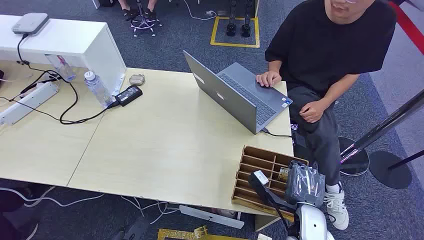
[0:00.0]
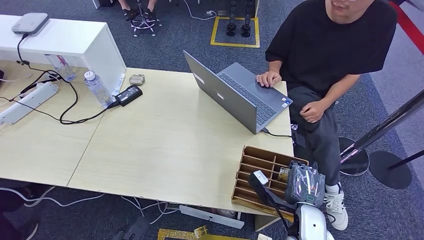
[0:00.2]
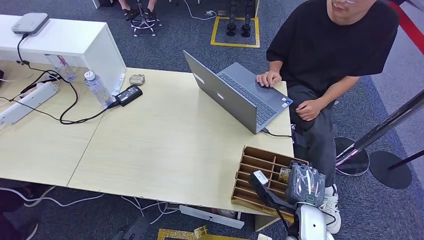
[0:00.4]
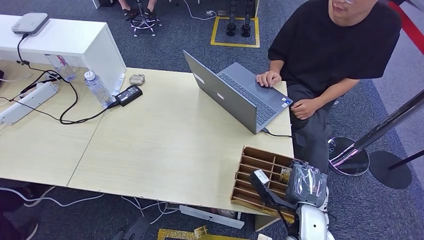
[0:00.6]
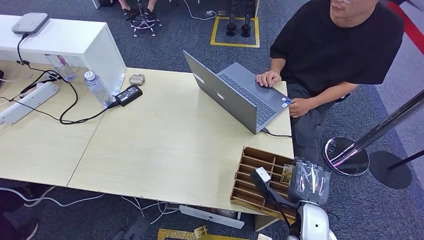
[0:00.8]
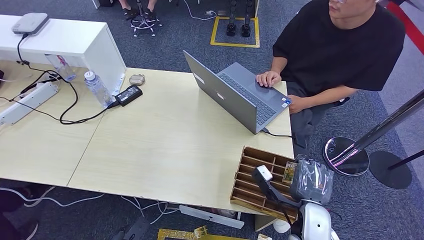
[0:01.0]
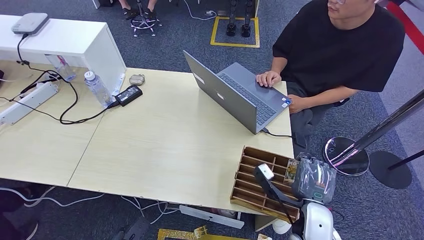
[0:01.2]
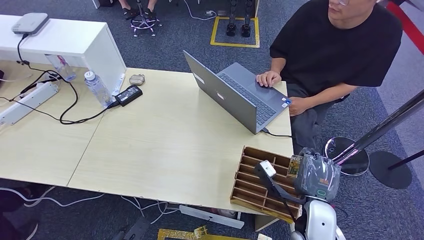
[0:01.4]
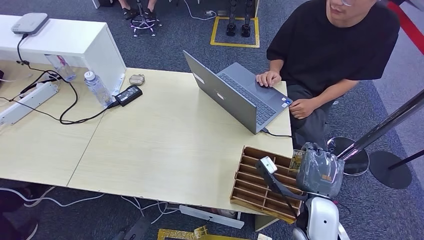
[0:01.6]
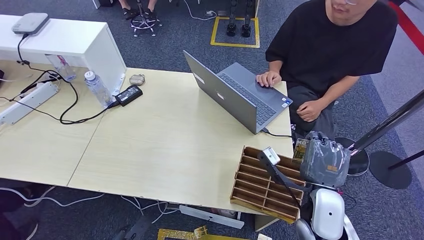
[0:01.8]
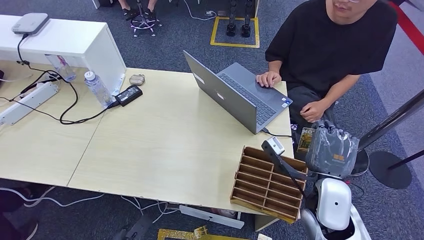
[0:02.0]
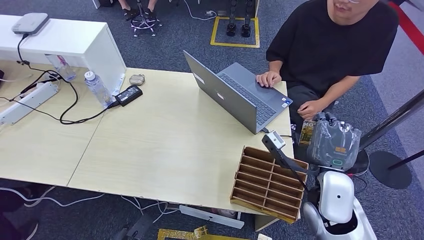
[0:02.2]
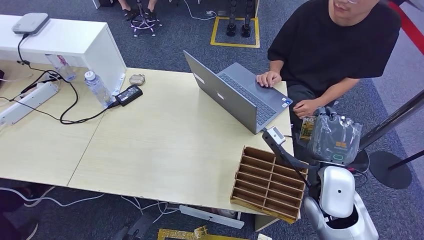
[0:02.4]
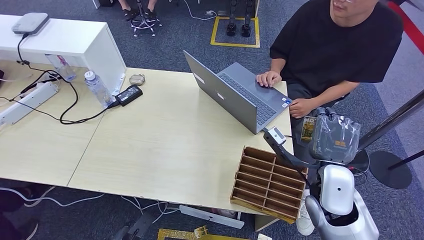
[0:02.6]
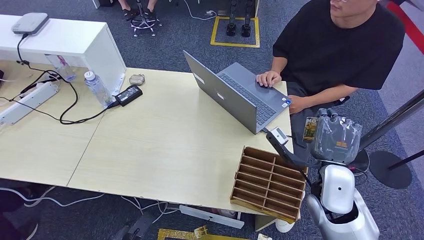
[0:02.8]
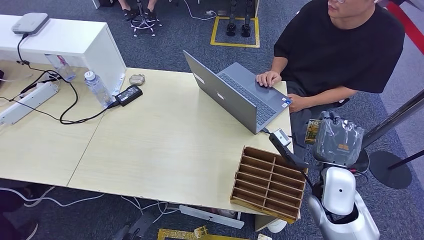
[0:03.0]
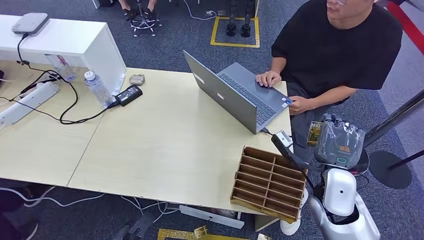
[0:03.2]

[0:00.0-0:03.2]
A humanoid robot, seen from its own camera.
Step, 0:00.0 to 0:01.6: Pick up the room card from the card holder.
Step, 0:01.8 to 0:03.0: Hand the room card to the target.
0:01.6 to 0:03.2: The right hand goes some 5 cm forward.
